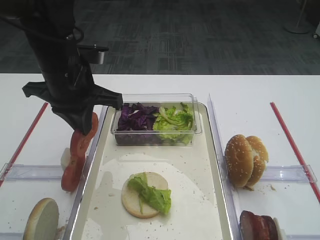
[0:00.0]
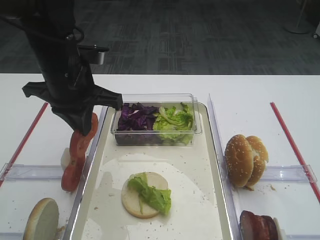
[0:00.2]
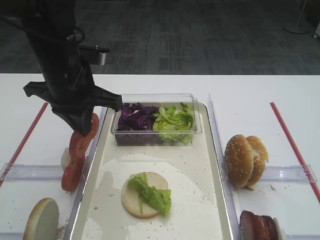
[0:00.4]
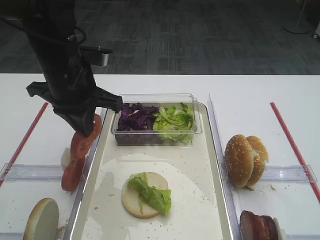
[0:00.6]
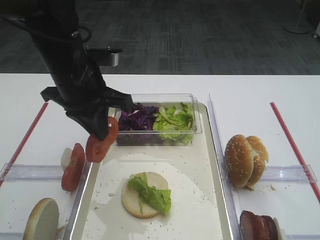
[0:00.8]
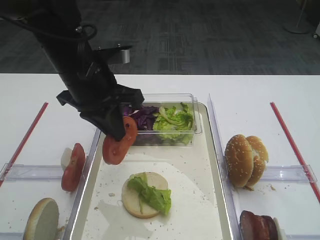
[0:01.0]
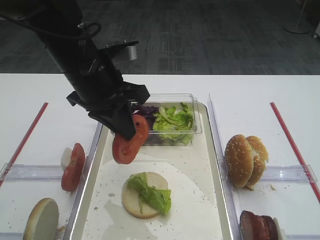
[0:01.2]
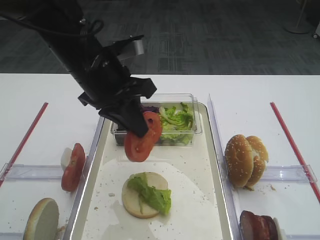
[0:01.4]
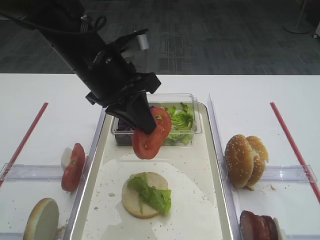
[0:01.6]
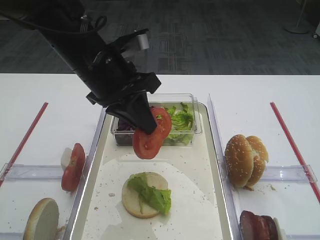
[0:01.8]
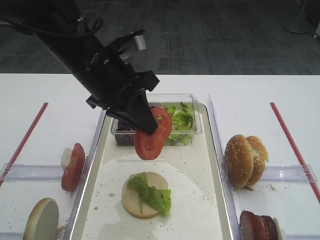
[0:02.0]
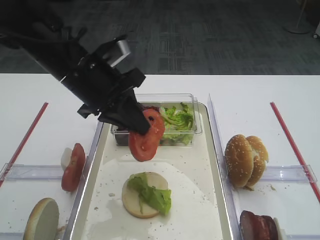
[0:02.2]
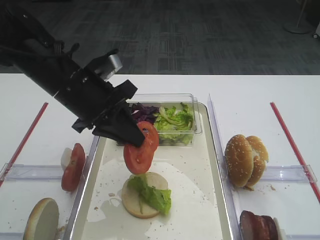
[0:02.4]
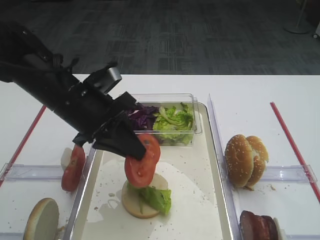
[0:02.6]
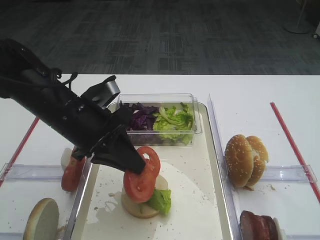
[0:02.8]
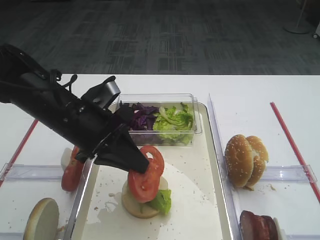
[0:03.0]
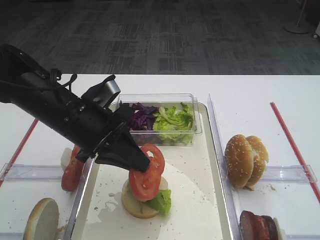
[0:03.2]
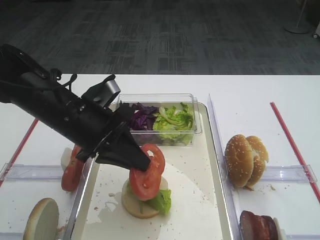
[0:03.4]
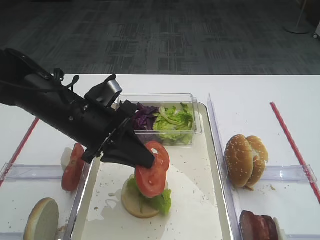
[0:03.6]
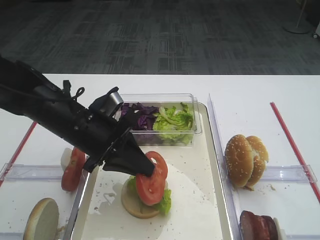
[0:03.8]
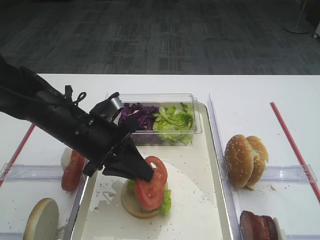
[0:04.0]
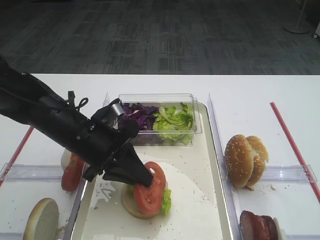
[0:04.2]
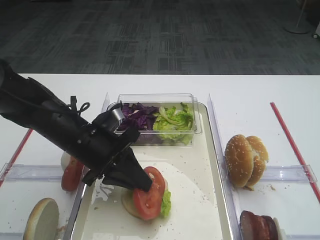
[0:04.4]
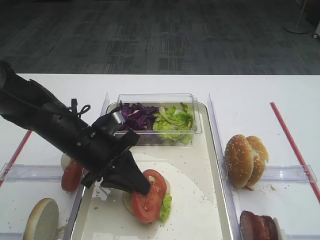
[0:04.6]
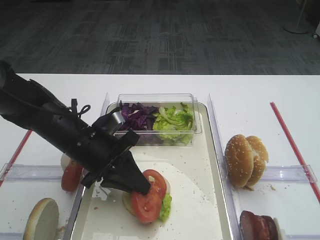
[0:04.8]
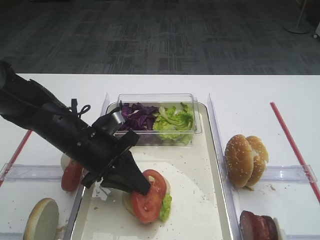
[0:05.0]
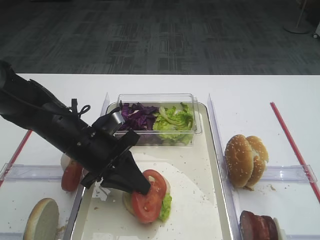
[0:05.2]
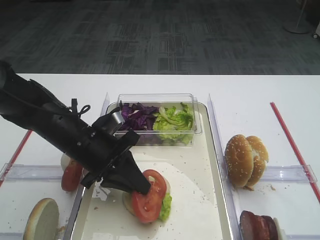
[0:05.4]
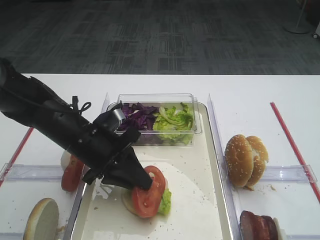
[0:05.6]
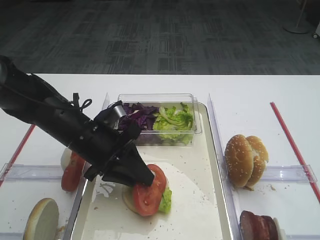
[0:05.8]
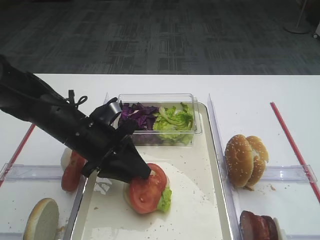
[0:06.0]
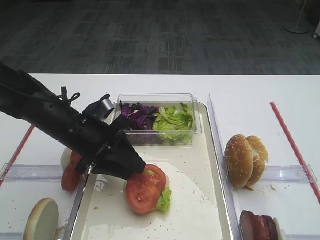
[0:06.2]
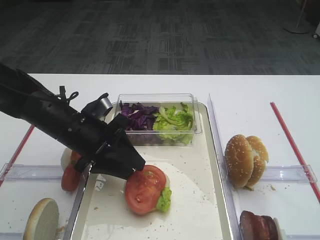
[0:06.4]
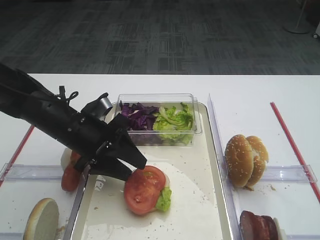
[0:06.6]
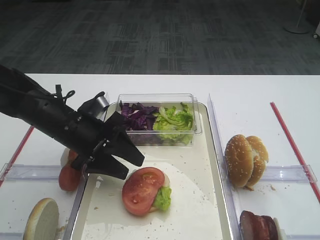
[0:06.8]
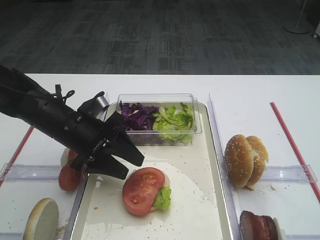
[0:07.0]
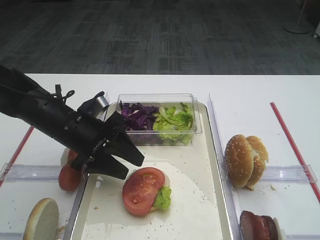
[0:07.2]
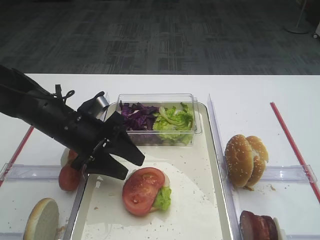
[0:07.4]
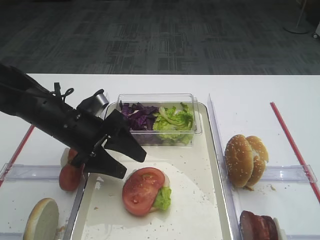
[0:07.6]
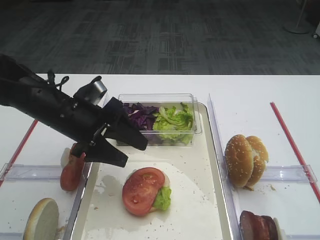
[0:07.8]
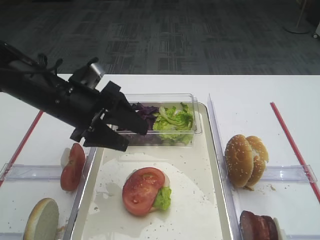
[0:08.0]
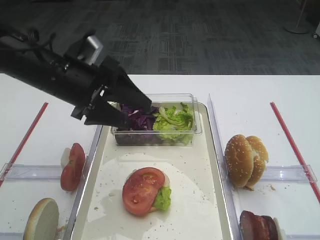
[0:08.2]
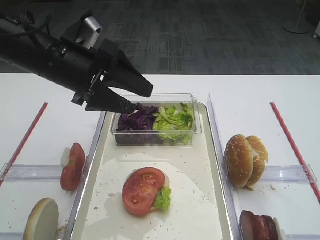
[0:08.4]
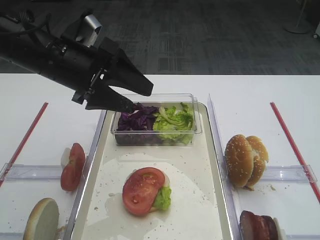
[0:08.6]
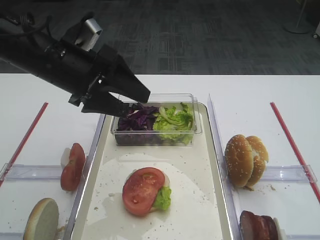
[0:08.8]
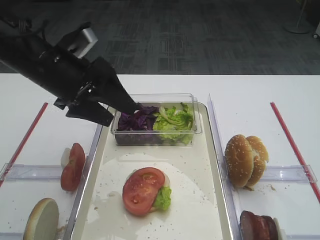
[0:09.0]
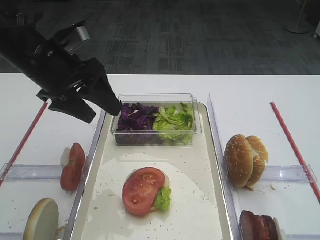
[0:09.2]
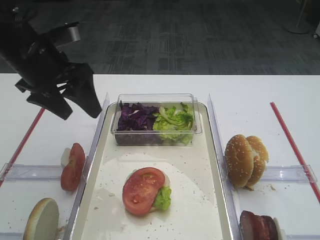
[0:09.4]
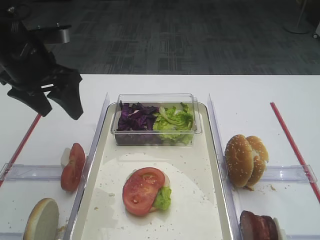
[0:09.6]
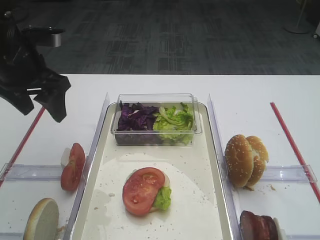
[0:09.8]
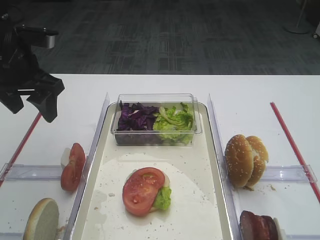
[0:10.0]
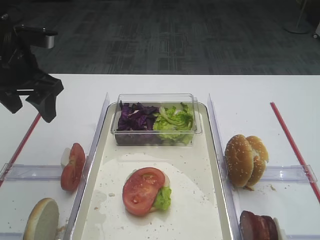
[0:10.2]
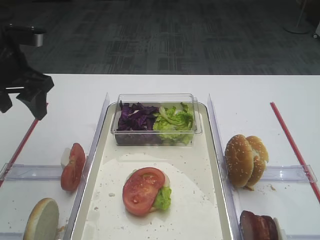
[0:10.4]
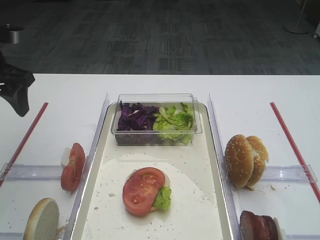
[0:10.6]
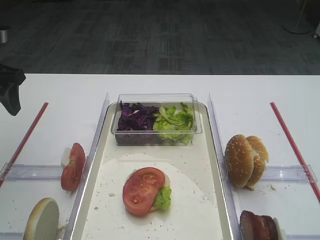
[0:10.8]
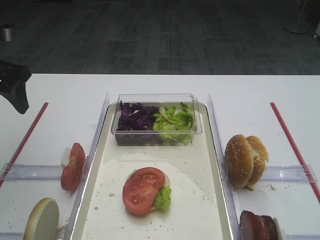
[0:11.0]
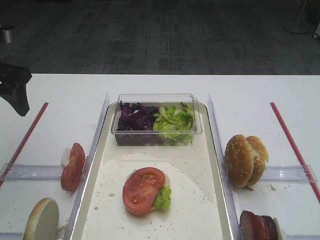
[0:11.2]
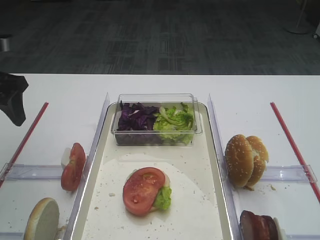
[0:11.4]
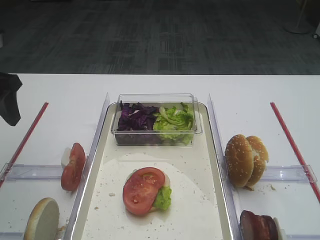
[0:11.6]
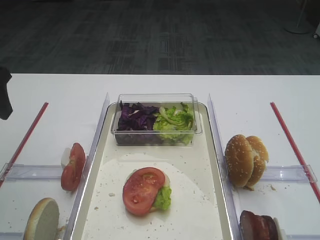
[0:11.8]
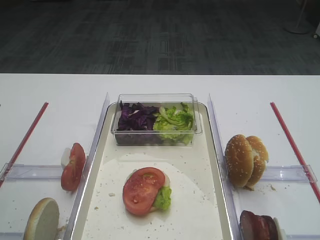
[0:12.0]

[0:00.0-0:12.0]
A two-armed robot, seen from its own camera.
Step, 0:00.0 to 0:07.4: Place the tomato slice on the lettuce leaf with the left gripper.
0:00.0 to 0:01.6: The left gripper shifts by about 5 cm.
0:01.6 to 0:03.0: The left gripper shifts approximately 5 cm downward.
0:03.0 to 0:04.4: The left gripper is displaced downward by approximately 5 cm.
0:04.4 to 0:06.0: Neither gripper changes place.
0:06.0 to 0:07.6: The left gripper opens its fingers.
0:07.6 to 0:09.0: The left gripper shifts roughly 10 cm upward.
0:09.0 to 0:10.4: The left gripper shifts about 10 cm to the left.
0:10.4 to 0:12.0: The left gripper goes about 10 cm backward.

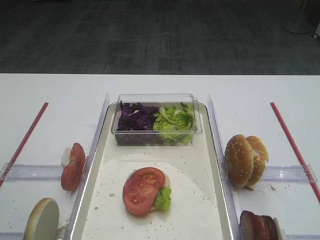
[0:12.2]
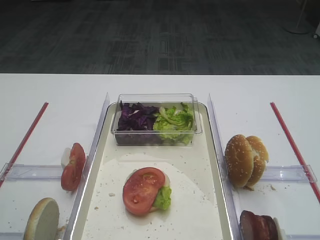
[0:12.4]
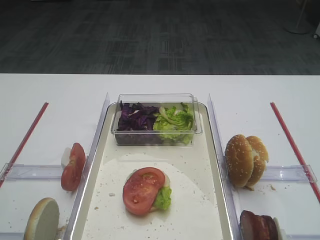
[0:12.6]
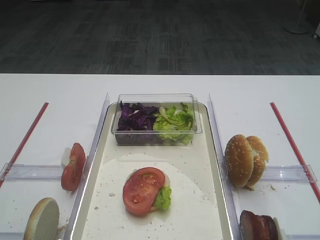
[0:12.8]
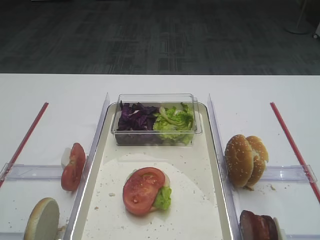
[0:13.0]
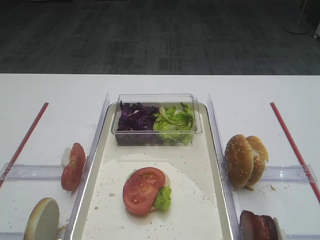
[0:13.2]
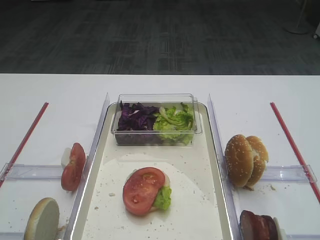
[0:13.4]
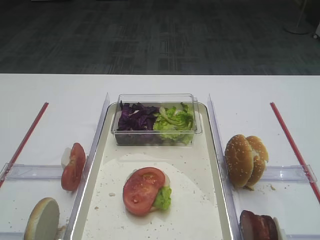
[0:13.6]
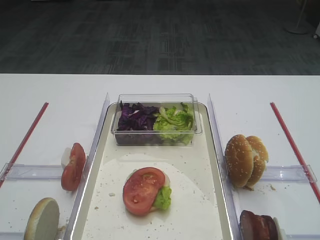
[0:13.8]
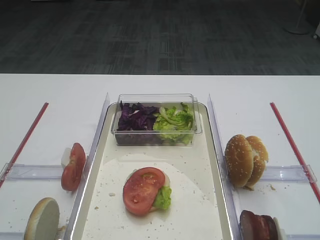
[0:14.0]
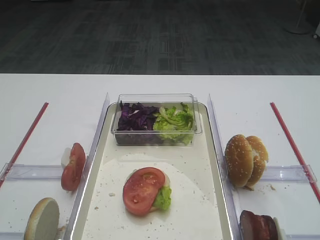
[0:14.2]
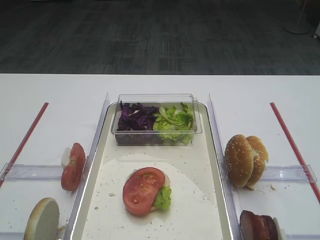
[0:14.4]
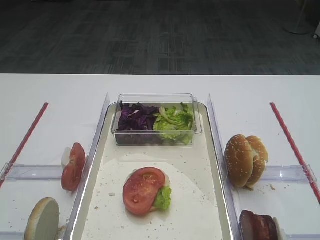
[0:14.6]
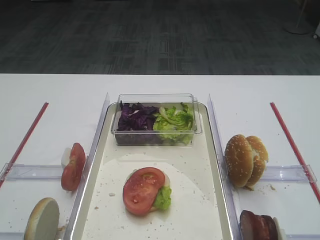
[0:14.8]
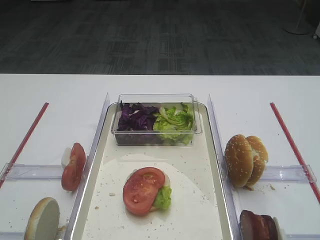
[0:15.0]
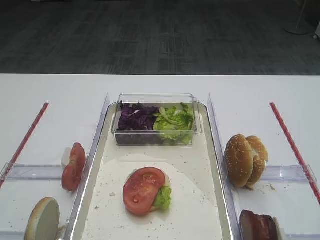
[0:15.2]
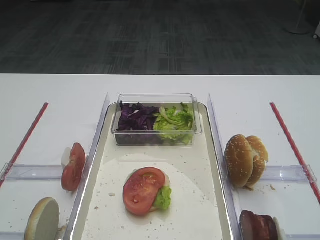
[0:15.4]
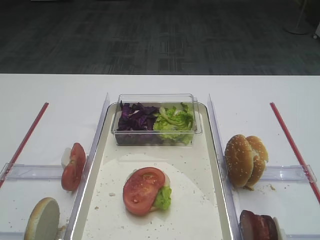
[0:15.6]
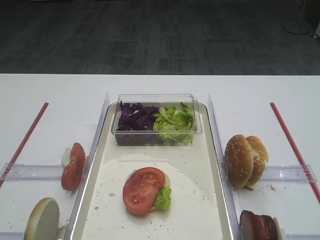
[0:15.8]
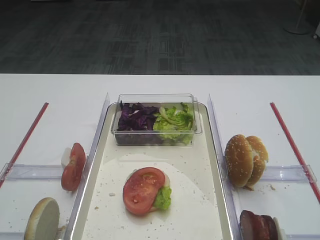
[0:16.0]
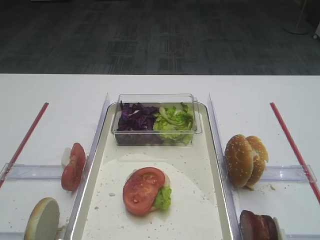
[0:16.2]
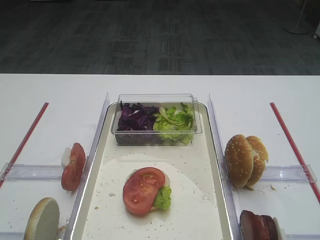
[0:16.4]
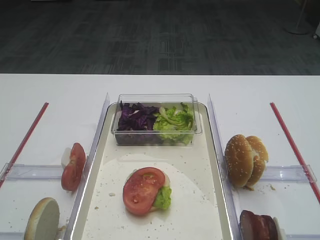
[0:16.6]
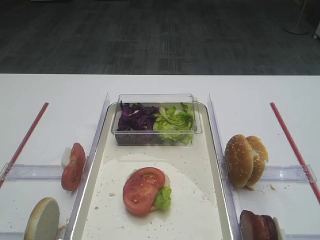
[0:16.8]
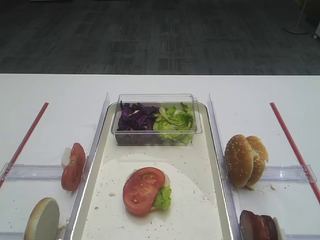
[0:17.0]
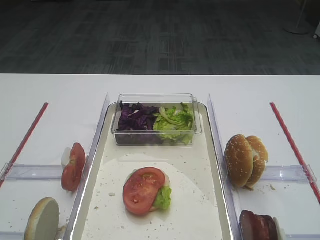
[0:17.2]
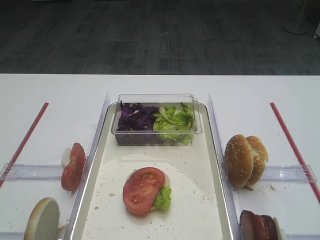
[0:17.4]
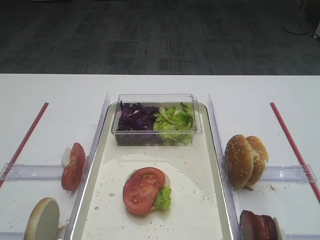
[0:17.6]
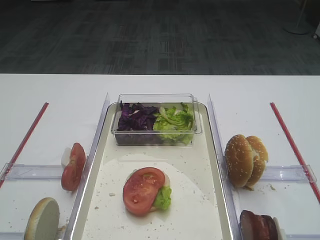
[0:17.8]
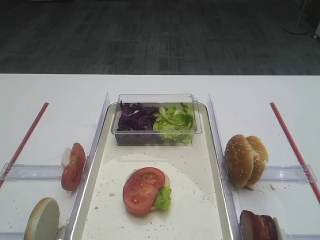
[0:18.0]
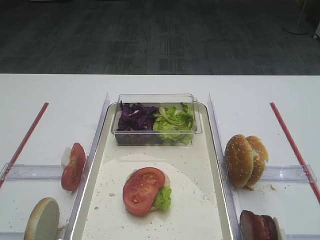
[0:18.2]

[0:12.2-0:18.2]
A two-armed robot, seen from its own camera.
0:15.2 to 0:18.2: The two grippers keep their place.

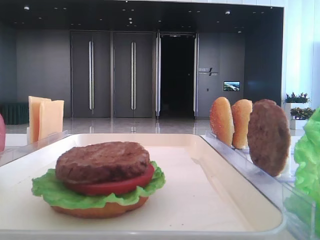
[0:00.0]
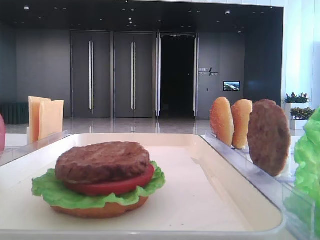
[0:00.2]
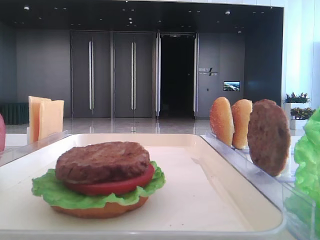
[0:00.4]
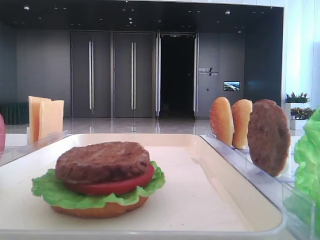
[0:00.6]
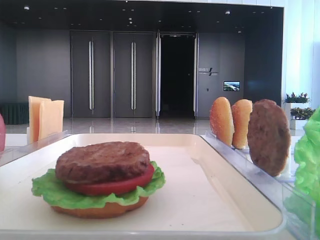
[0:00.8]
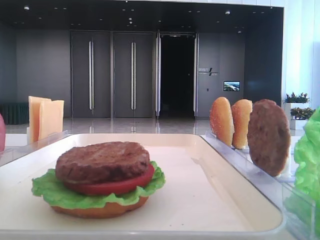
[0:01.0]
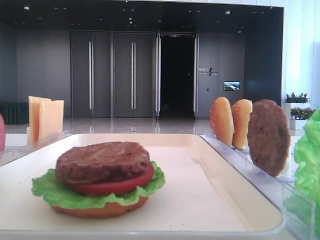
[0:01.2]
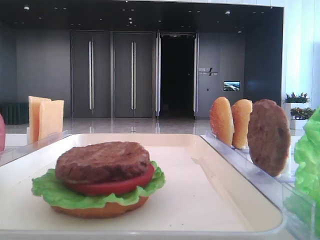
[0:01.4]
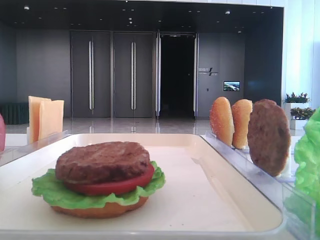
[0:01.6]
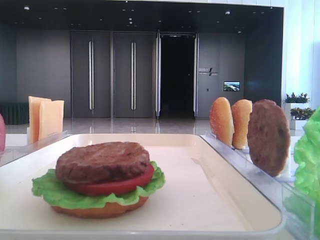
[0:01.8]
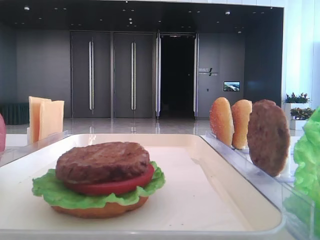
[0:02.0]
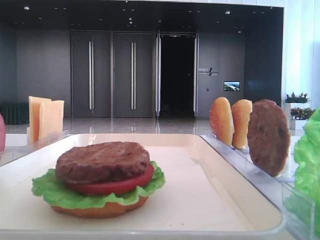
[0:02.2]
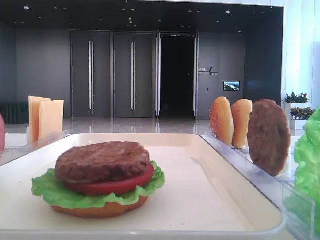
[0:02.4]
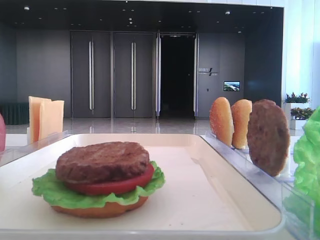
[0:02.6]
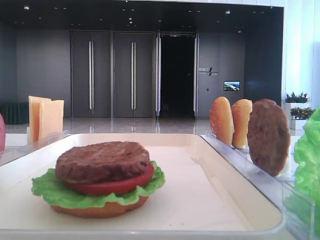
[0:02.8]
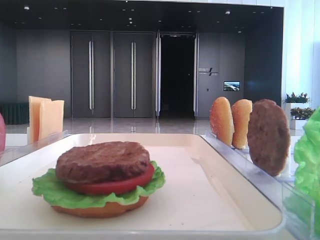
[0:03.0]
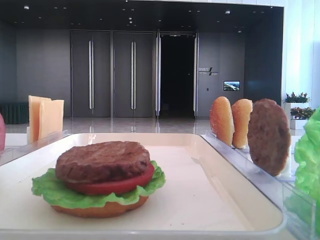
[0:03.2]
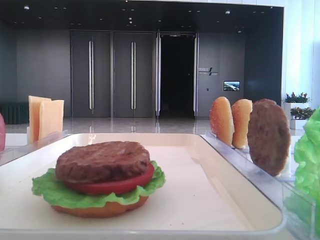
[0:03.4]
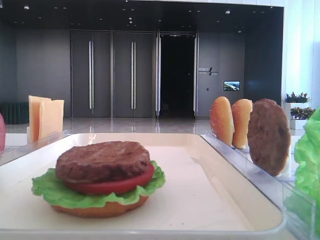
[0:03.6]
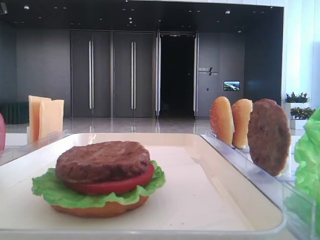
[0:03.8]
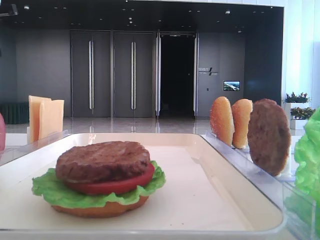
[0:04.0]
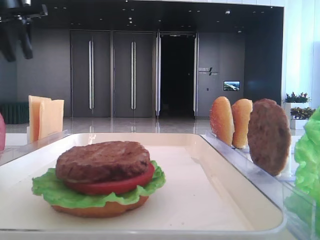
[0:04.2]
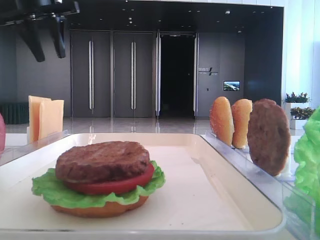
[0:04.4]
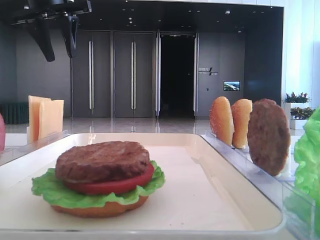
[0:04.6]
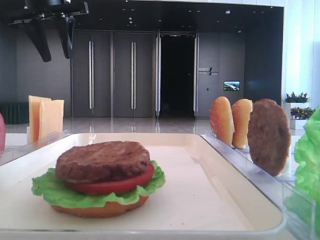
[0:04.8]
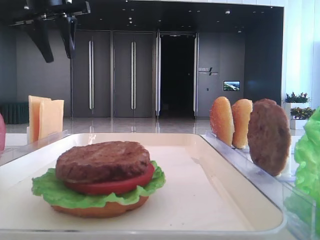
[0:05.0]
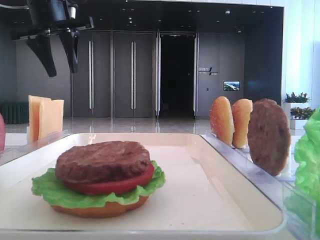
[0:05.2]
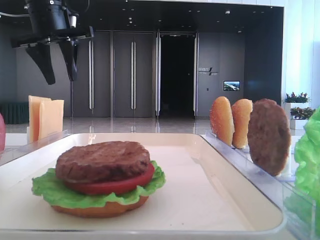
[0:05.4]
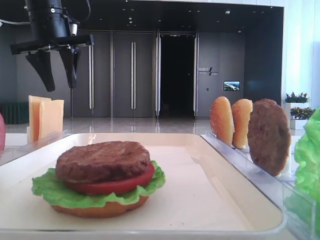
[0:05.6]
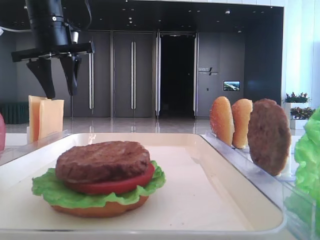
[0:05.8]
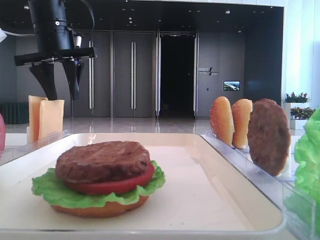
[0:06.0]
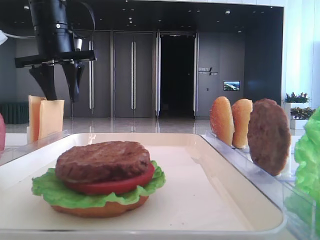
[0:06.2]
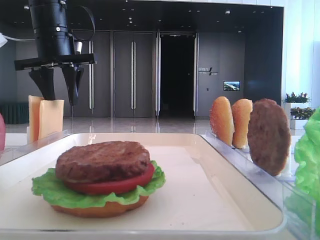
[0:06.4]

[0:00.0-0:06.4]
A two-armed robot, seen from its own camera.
0:03.2 to 0:04.8: The left gripper shifts approximately 15 cm to the right and forward.
0:04.8 to 0:06.4: The left gripper is displaced downward by about 10 cm.